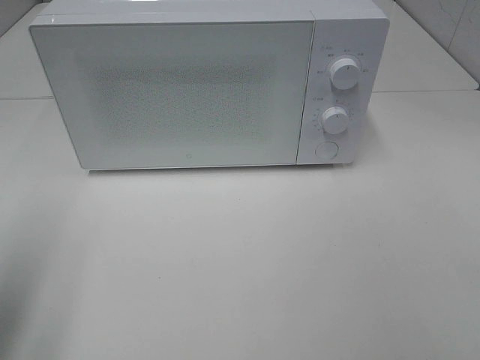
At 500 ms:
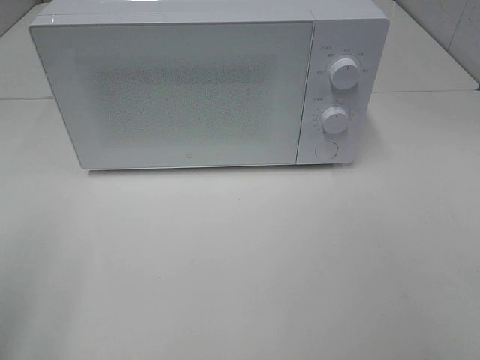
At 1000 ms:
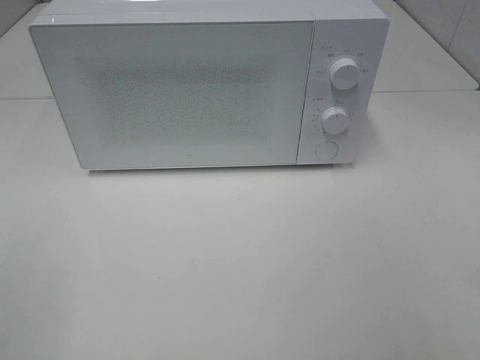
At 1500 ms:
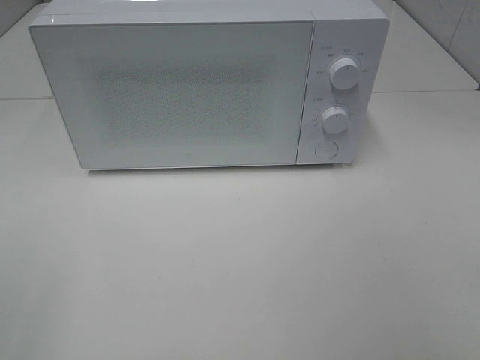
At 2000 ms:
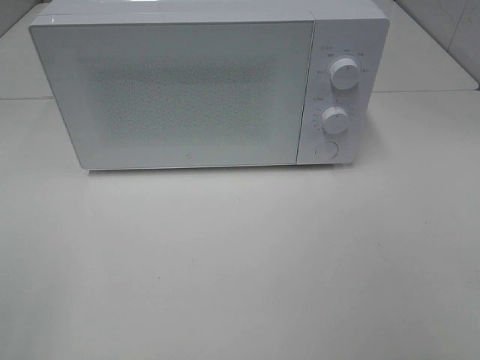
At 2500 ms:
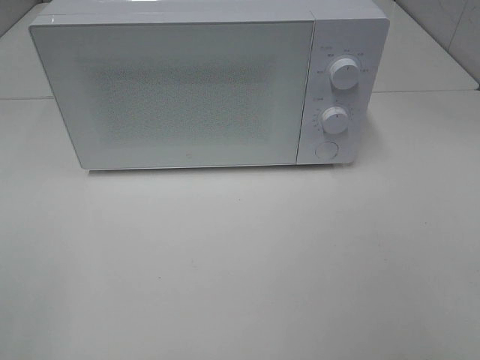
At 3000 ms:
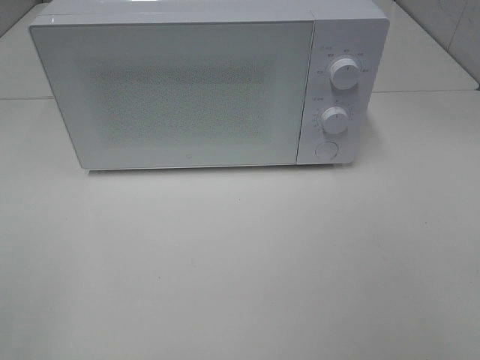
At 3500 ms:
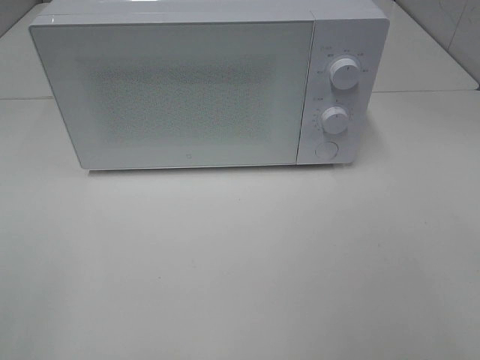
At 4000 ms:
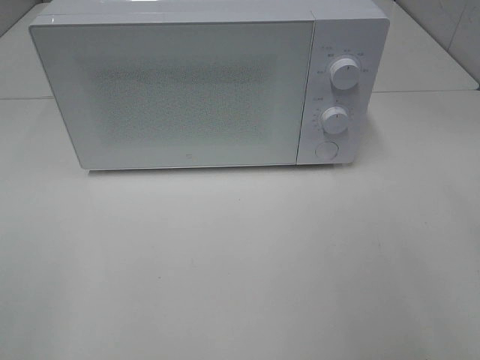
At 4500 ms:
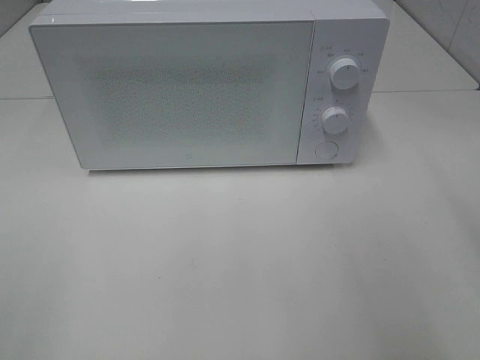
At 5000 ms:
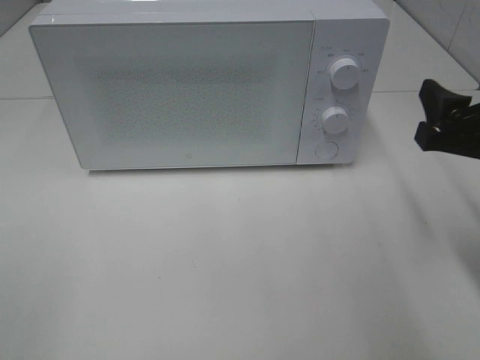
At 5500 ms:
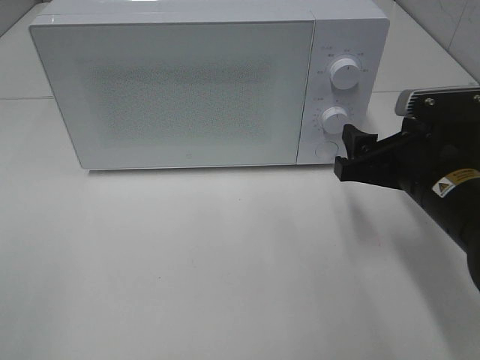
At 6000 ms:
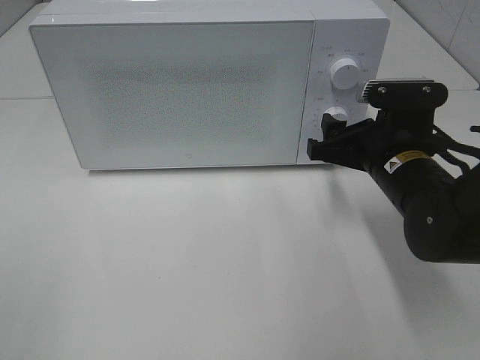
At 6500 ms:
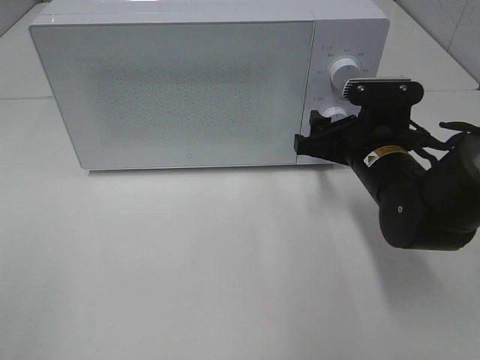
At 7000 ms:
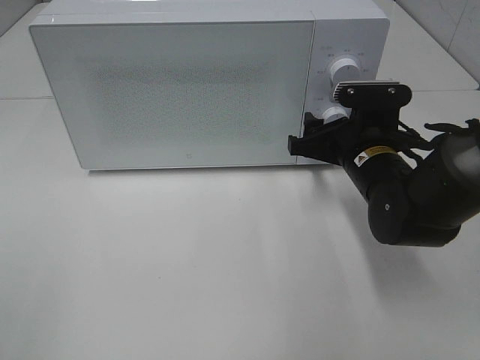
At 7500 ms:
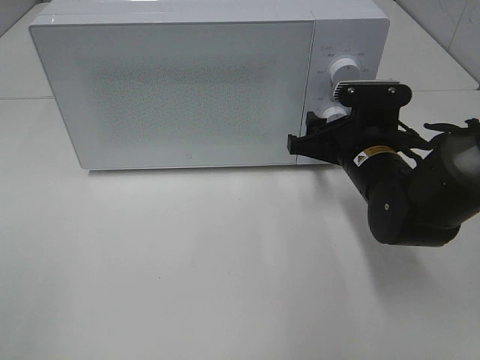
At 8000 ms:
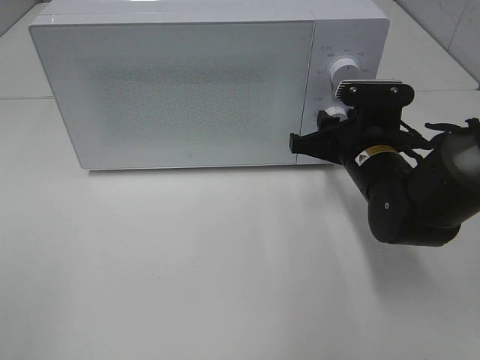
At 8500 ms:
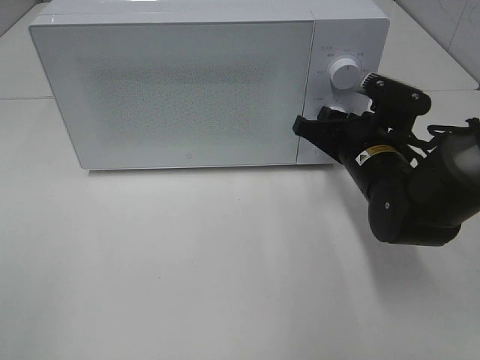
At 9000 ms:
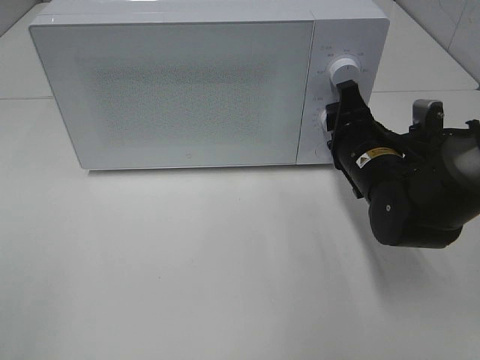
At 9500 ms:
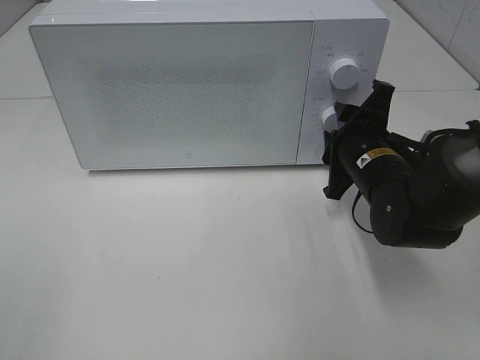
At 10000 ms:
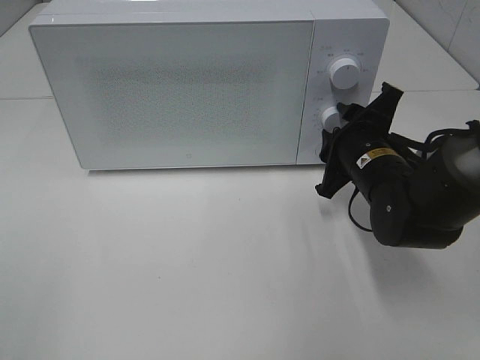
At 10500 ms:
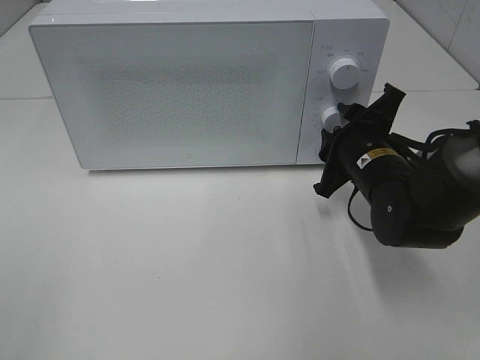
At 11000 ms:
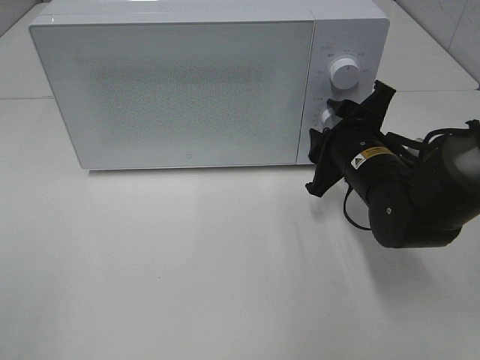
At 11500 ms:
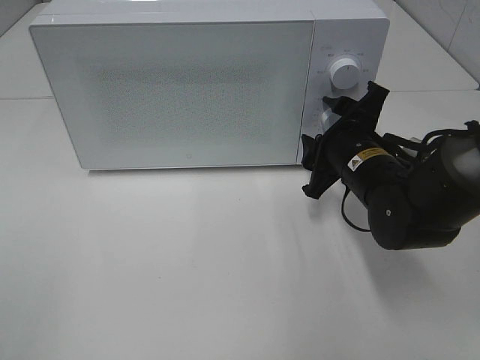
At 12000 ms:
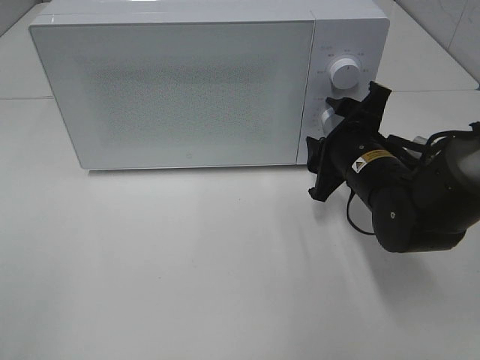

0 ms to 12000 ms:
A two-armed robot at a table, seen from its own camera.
Task of the whole recording: Heat the burger.
Step, 0 ms to 10500 ms: Right hand: twist timer button.
0 ms to 2000 ms: The left gripper moves backward, some 15 cm.
4000 ms to 6000 ms: The right gripper travels forward, downward and to the left by about 25 cm.
6000 ms to 8000 ms: The grippers make only small movements.
10000 ms to 12000 ms: The grippers move only a little.

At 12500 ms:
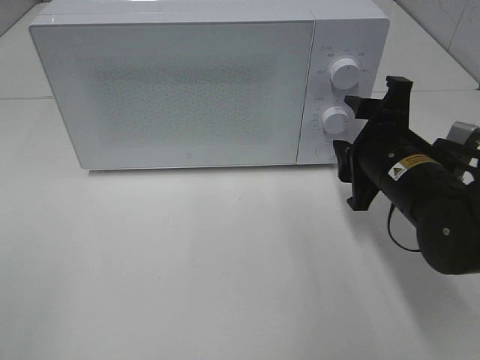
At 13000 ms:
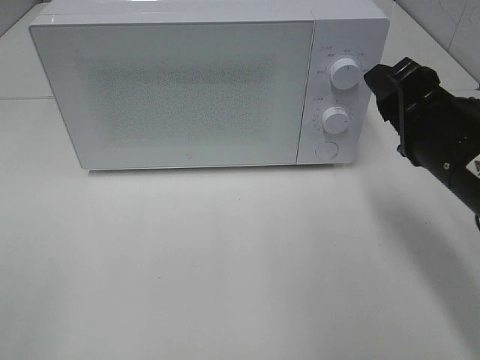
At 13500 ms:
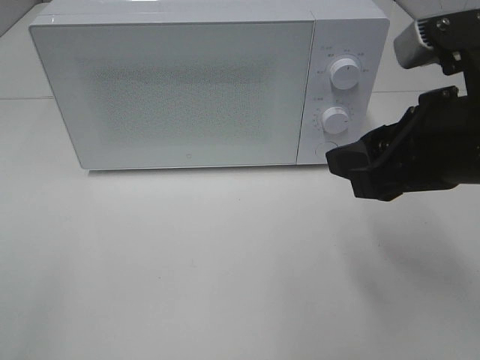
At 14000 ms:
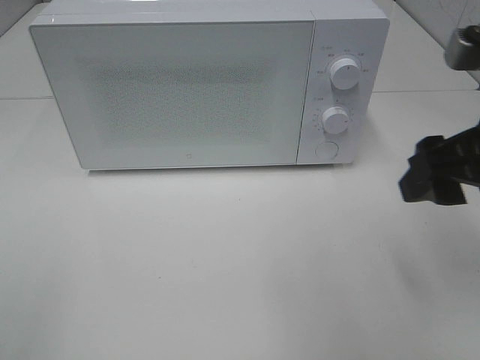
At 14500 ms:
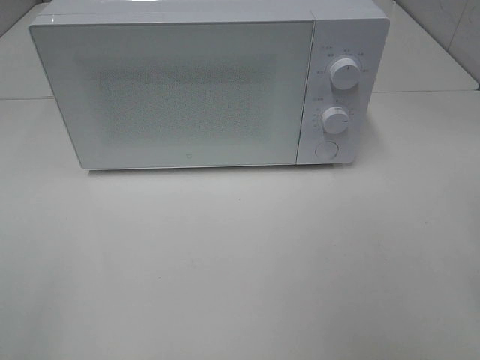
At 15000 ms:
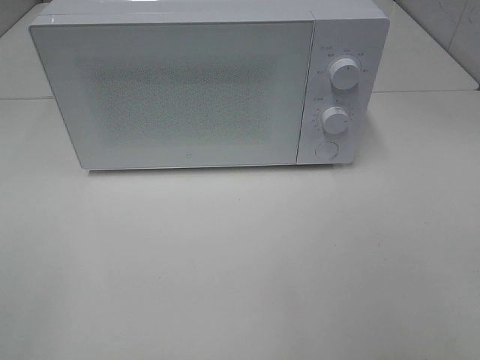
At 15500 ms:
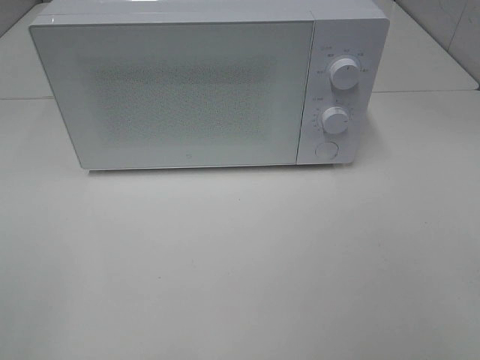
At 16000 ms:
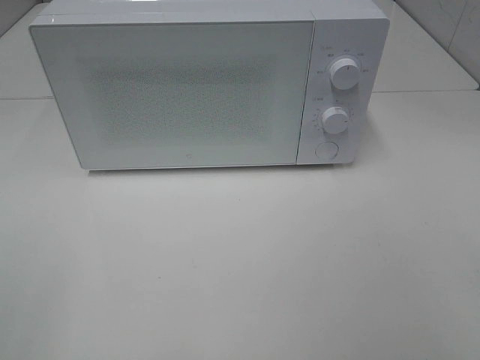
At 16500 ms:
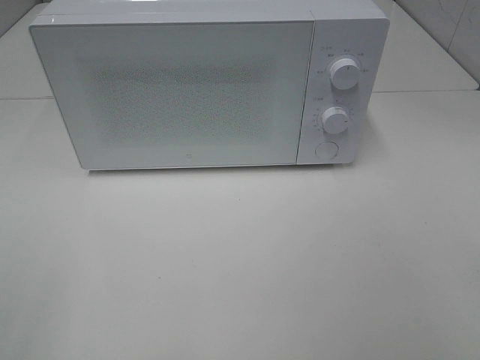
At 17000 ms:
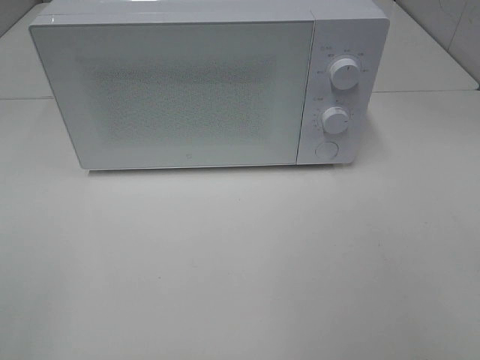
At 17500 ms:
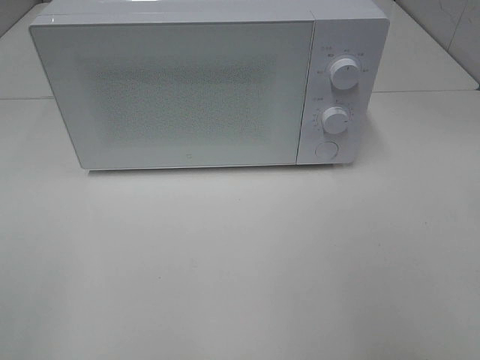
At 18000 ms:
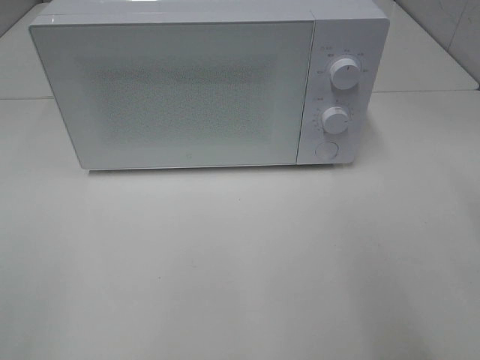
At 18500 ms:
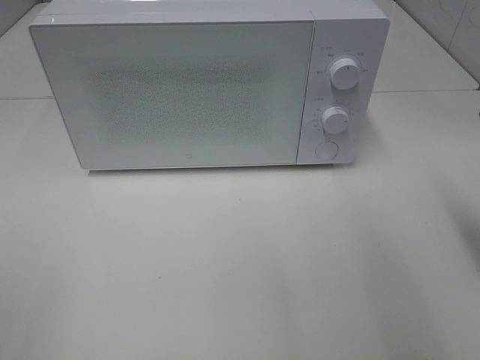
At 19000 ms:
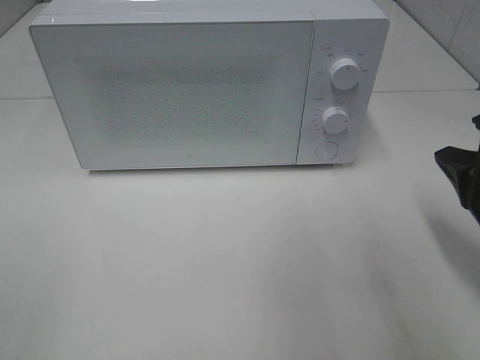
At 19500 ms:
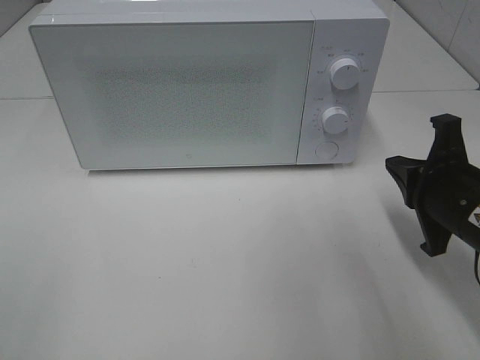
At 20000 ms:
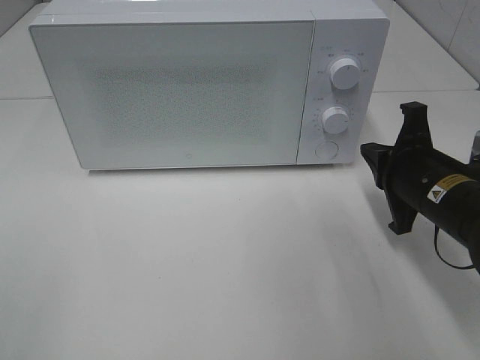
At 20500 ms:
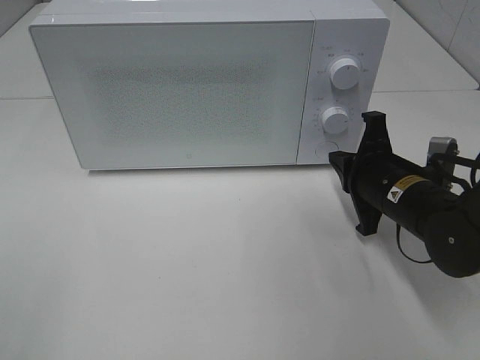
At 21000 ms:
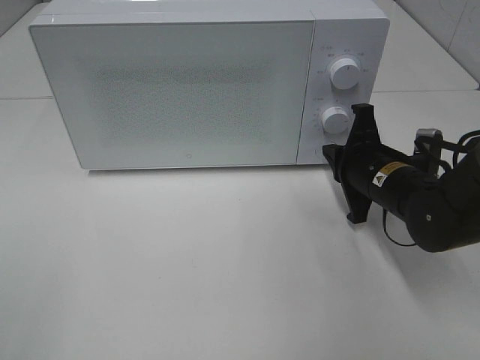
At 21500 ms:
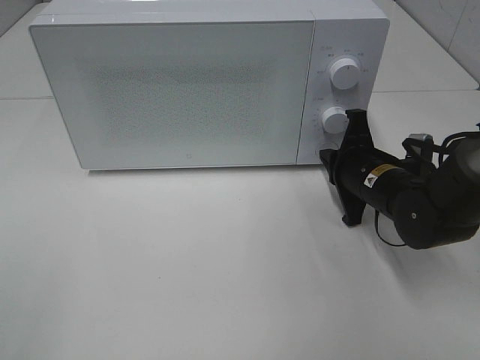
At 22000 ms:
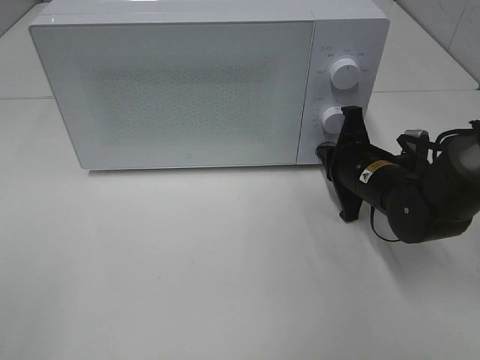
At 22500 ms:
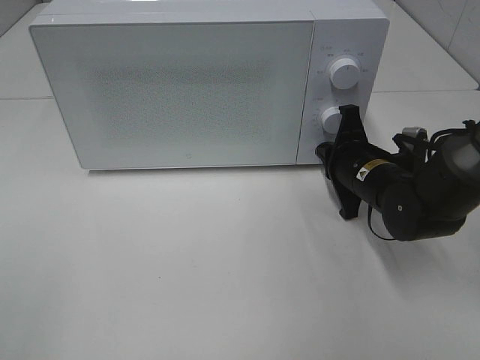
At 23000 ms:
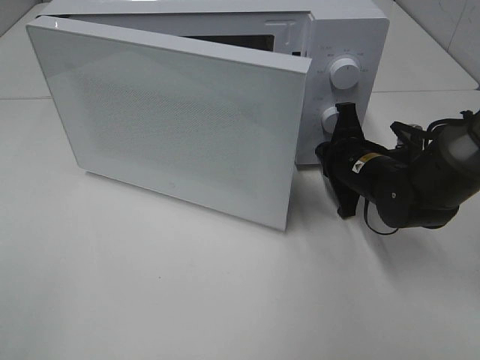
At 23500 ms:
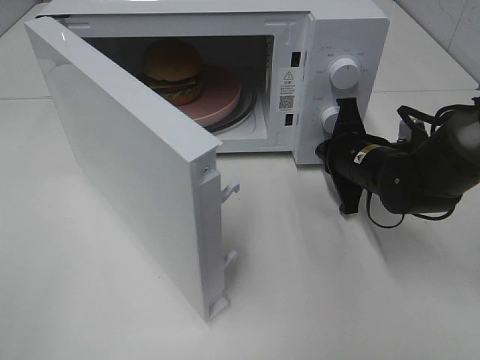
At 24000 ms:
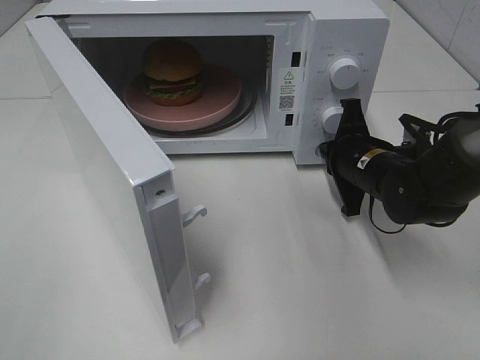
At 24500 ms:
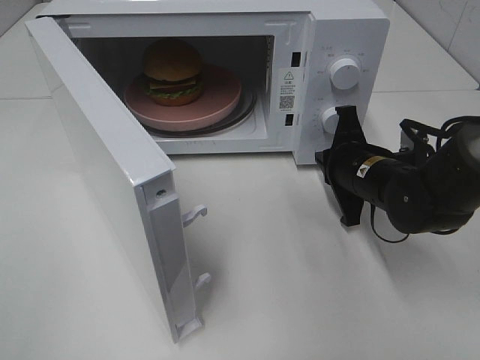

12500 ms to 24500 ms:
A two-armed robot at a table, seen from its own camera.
Task of the whole recording: Heat the burger.
Step, 12500 ms to 24000 ms: Right hand: press the switch.
12500 ms to 14500 ms: The right gripper heads upward, backward and to the right, covering approximately 20 cm.
18500 ms to 20500 ms: The right gripper heads downward, forward and to the left, covering approximately 20 cm.
20500 ms to 22500 ms: The right gripper is displaced forward by roughly 5 cm.

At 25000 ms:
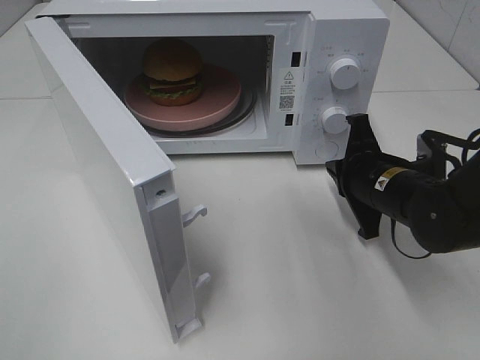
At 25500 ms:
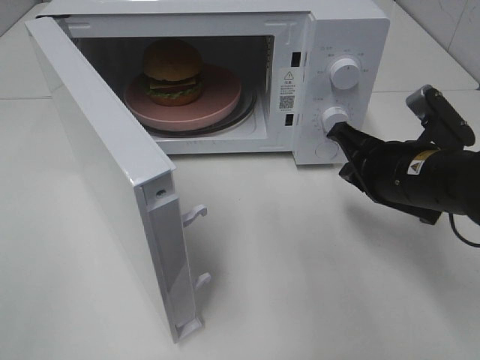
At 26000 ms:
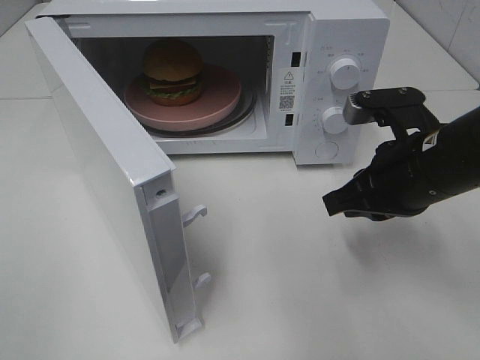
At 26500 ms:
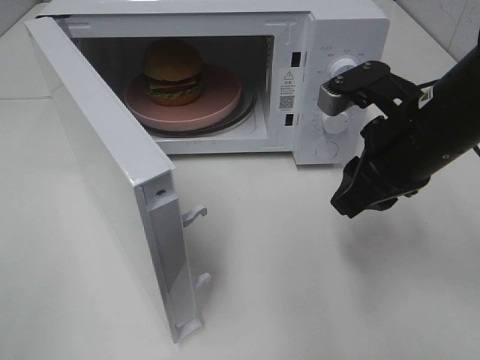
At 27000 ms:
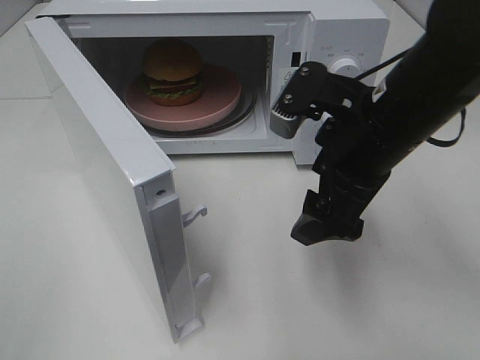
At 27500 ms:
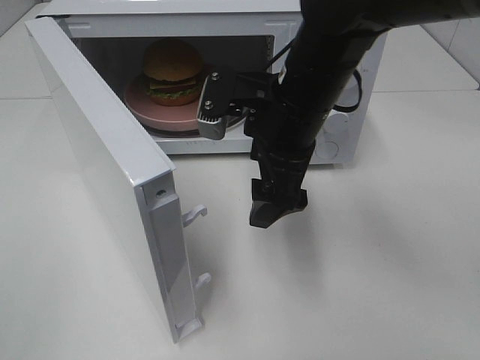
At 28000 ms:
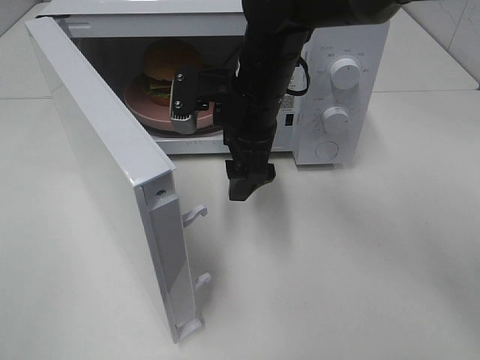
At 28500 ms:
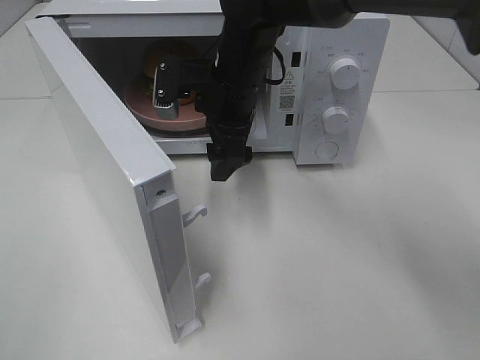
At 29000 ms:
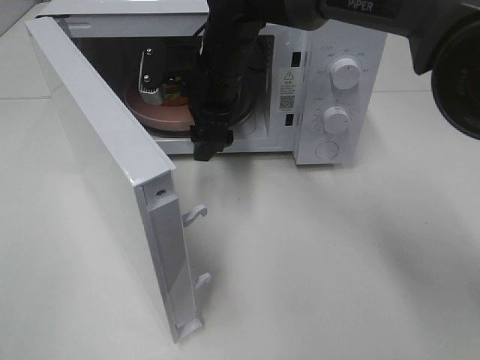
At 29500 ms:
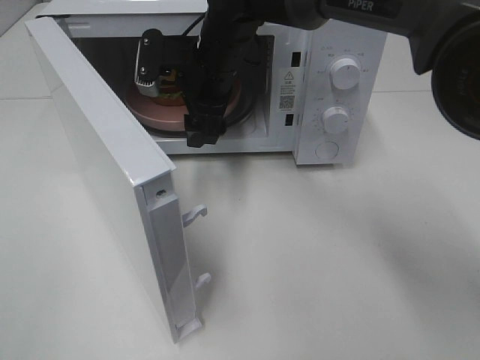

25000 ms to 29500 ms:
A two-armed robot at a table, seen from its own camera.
Task of the whole recording: Heat the burger.
25000 ms to 27000 ms: The right gripper heads upward and to the left, covering approximately 15 cm, and opens up.
27000 ms to 29500 ms: The right gripper goes some 20 cm forward and to the left.
